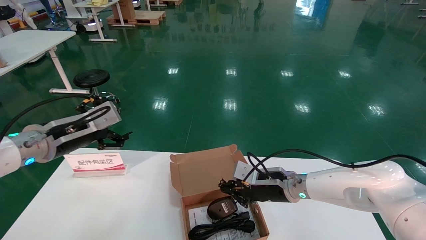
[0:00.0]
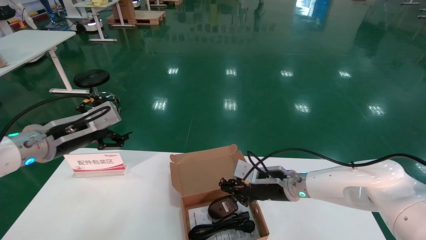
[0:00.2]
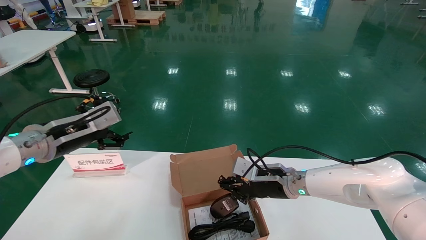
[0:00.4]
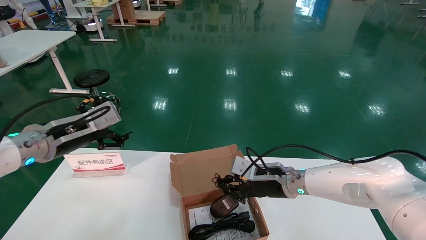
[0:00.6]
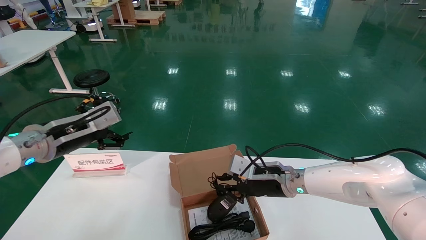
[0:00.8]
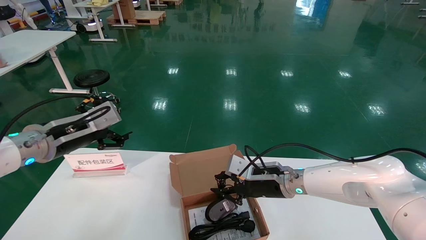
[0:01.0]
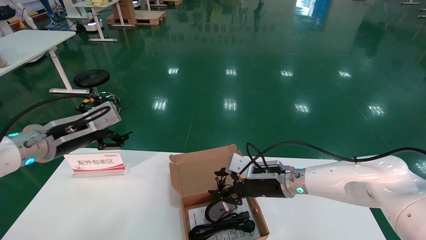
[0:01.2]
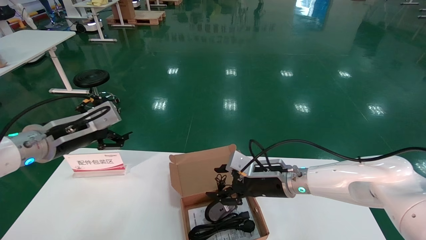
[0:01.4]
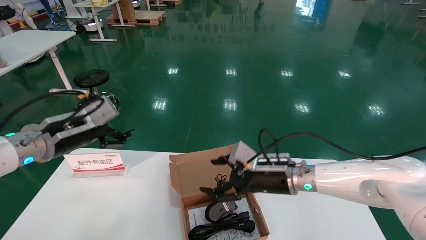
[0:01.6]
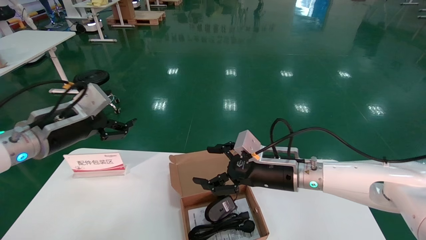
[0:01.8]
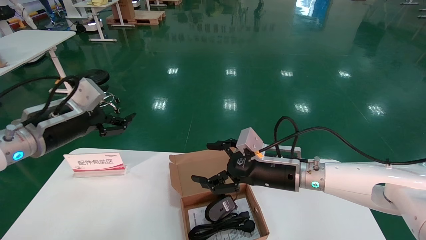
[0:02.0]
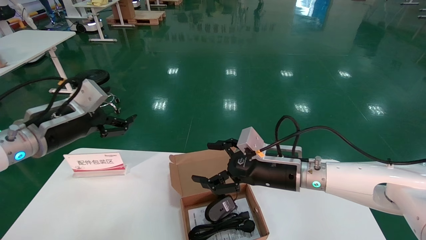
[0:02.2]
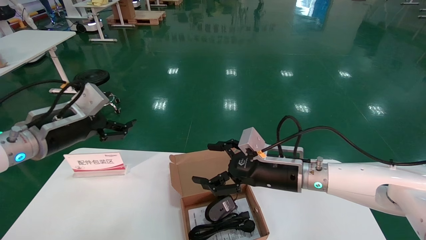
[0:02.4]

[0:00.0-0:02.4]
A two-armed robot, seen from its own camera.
0:00.0 to 0:01.2: The grippers stay close to where they were, moving slightly.
0:01.2 to 0:02.4: The right gripper moves approximately 5 cm, and opens.
